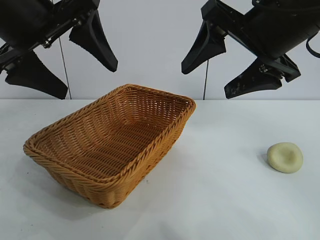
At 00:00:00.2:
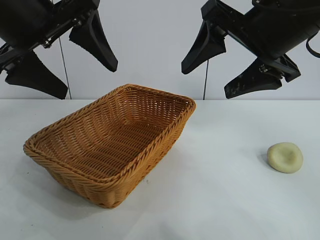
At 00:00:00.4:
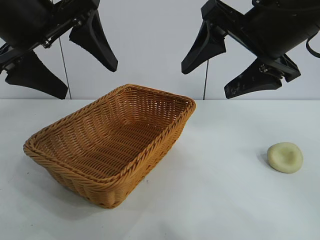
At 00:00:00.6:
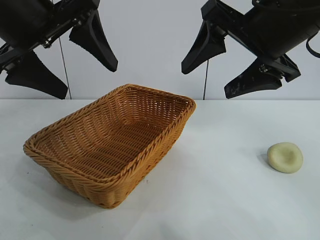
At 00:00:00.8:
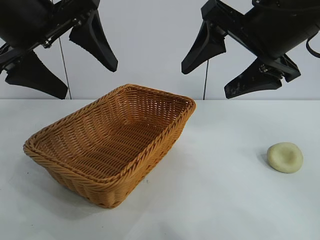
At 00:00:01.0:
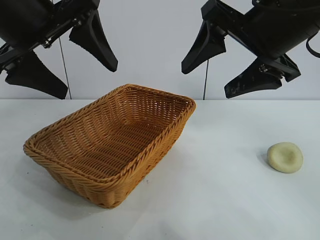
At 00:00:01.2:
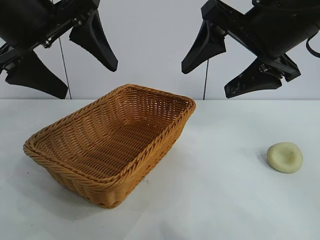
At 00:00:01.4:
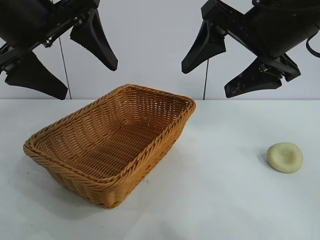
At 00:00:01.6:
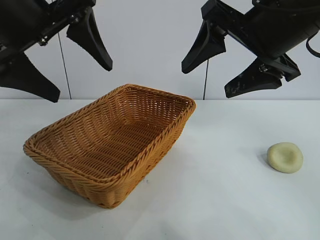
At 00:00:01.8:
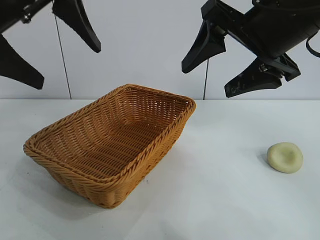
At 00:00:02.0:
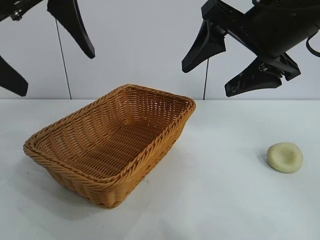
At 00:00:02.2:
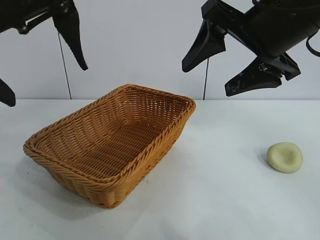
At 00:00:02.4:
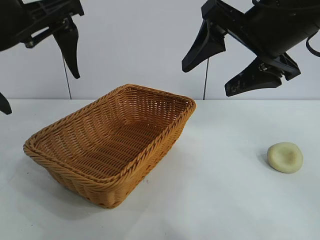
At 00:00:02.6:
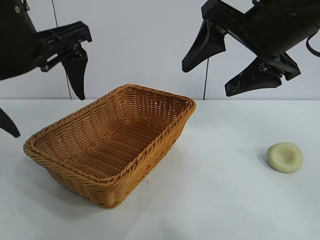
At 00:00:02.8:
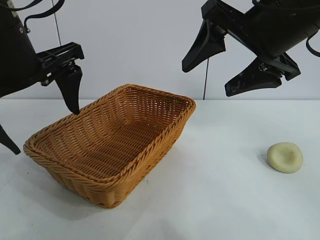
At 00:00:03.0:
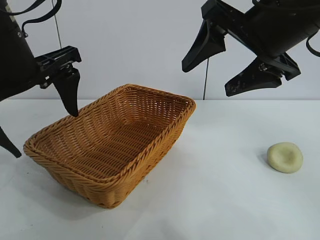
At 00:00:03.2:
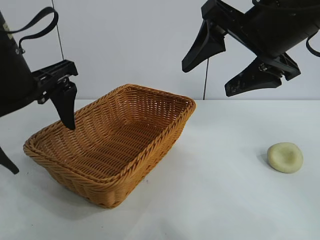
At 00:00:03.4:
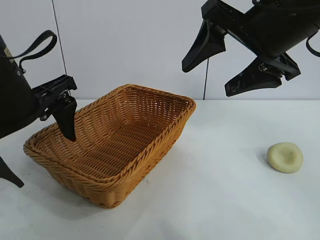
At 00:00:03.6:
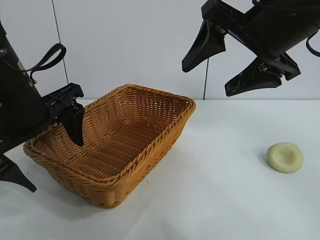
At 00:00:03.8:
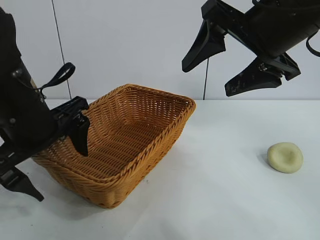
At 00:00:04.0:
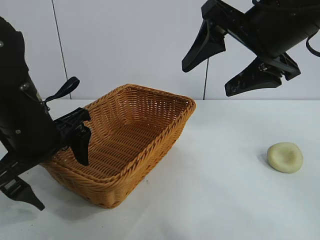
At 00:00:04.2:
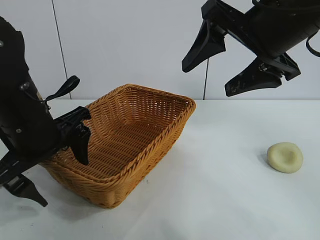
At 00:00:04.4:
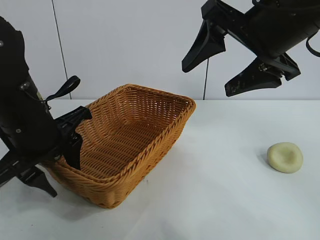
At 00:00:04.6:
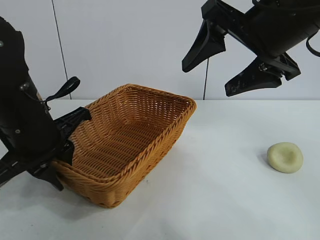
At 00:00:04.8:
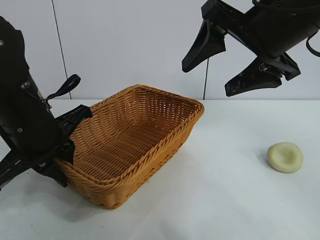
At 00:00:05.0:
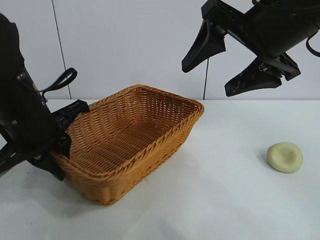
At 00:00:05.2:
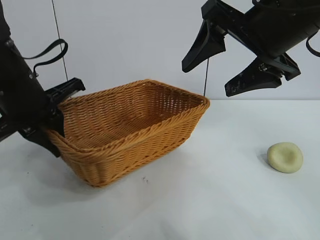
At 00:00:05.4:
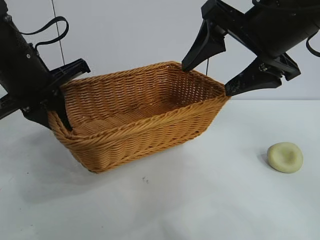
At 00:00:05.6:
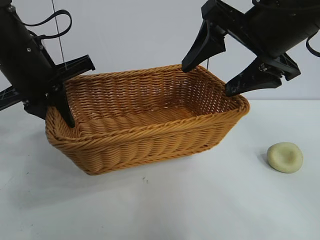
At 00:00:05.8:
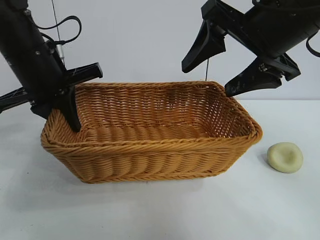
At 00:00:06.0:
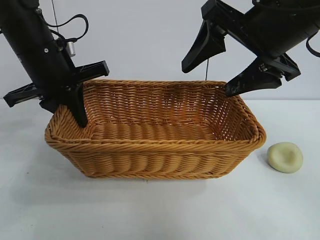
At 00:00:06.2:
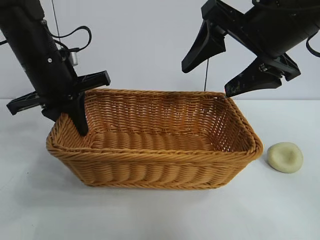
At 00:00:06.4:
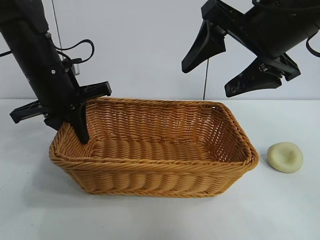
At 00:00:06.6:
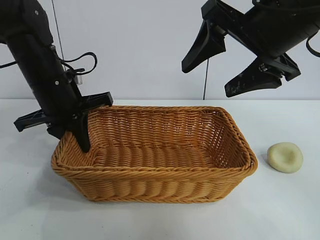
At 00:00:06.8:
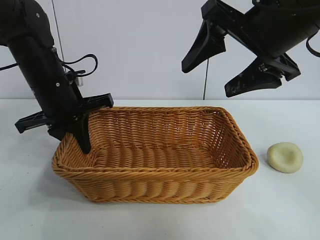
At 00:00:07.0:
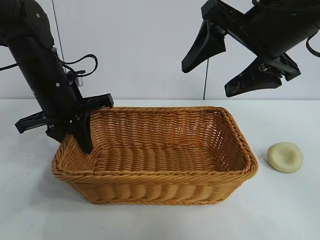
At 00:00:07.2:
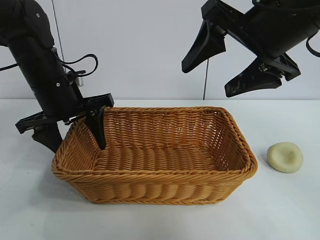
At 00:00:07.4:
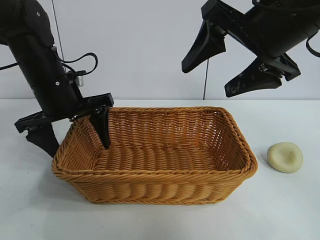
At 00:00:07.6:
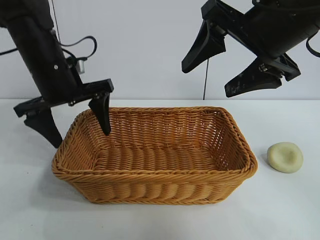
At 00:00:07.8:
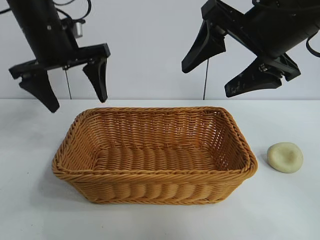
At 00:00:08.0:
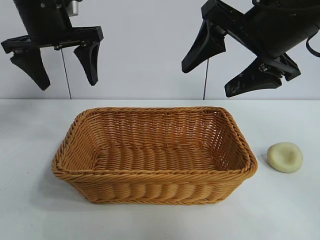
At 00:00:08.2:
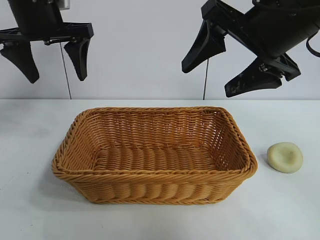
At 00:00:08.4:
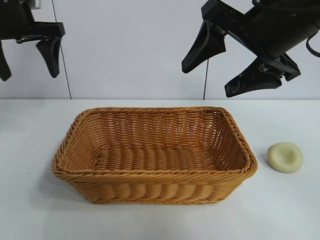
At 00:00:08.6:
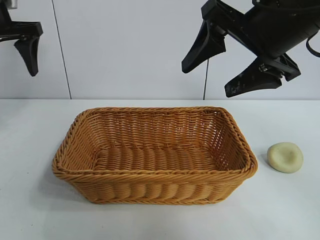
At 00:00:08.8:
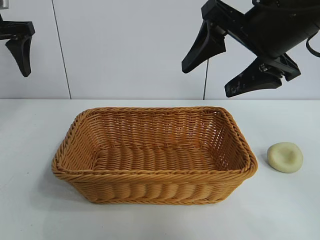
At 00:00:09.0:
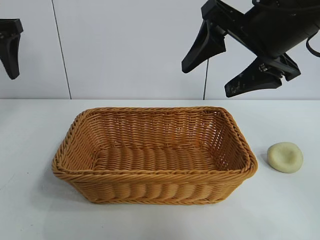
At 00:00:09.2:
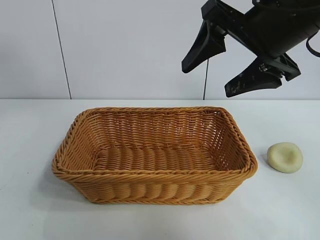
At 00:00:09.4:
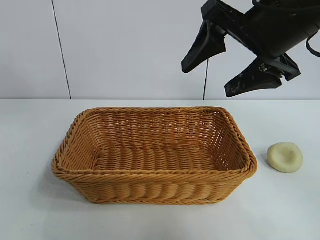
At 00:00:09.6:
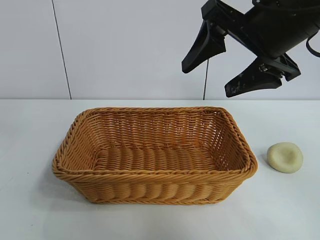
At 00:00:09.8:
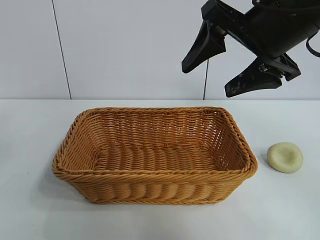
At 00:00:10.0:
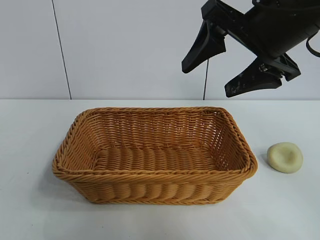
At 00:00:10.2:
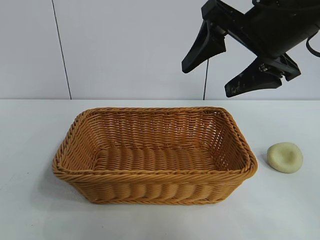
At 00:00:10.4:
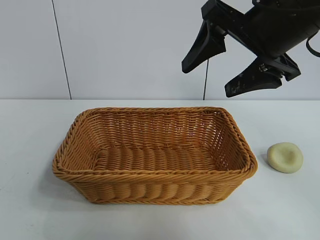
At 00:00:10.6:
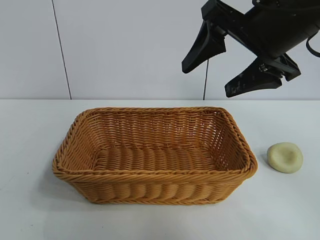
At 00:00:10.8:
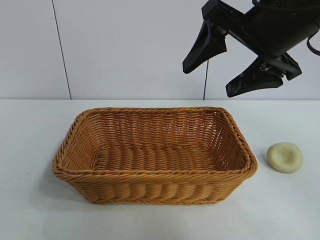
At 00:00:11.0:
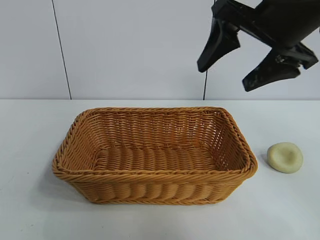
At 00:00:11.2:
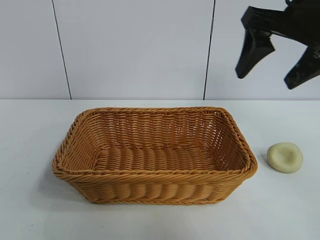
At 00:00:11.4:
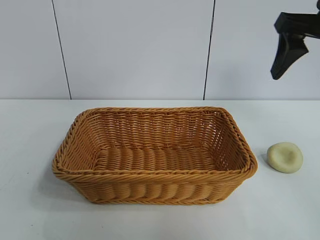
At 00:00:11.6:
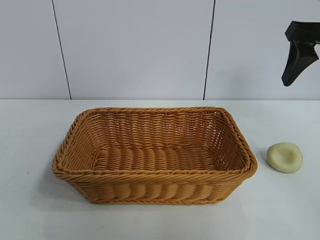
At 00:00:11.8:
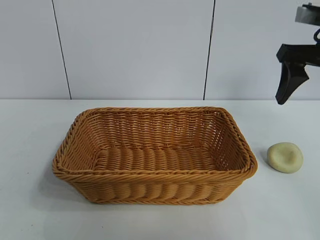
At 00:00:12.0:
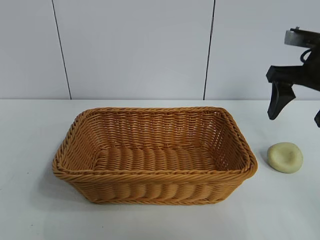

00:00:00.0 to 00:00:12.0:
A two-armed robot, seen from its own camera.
Task of the whole recording: pick up the egg yolk pastry and put it into the basket.
Step, 00:00:01.2 to 00:00:04.6: Grasp the basket with left gripper.
Step, 00:00:04.8 to 00:00:07.2: Place the basket in the center of view with left gripper.

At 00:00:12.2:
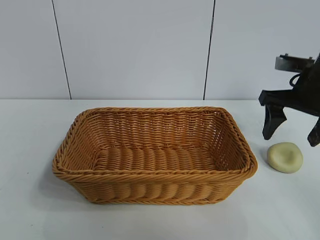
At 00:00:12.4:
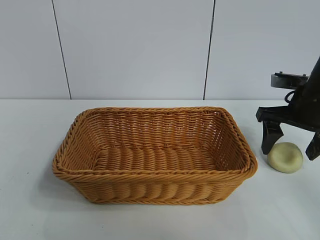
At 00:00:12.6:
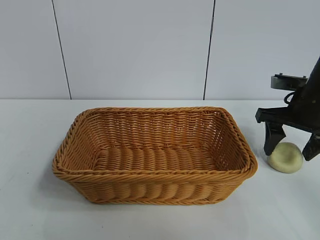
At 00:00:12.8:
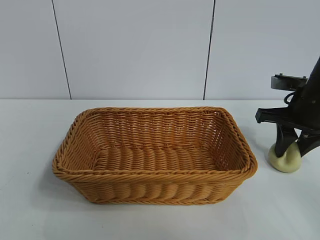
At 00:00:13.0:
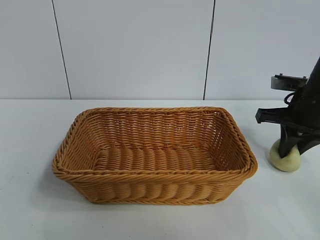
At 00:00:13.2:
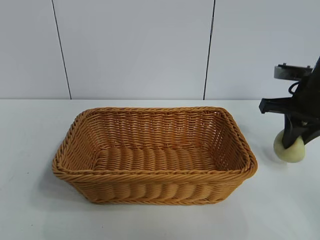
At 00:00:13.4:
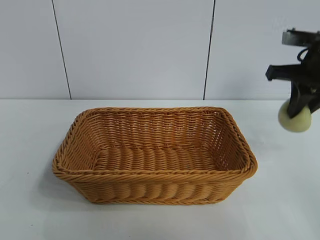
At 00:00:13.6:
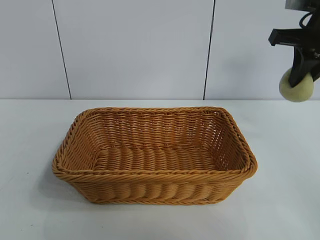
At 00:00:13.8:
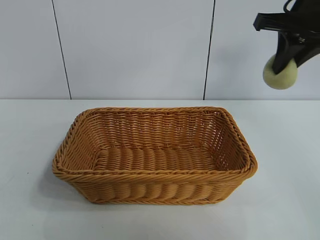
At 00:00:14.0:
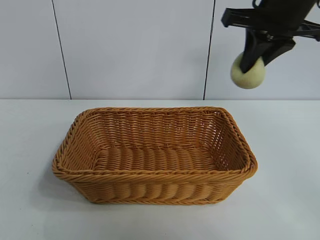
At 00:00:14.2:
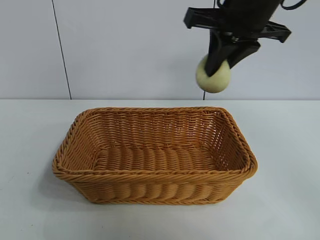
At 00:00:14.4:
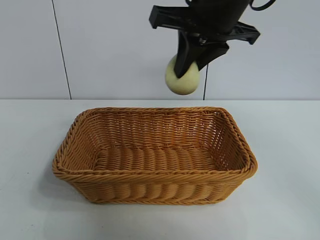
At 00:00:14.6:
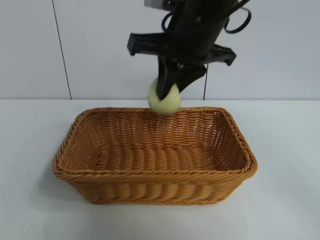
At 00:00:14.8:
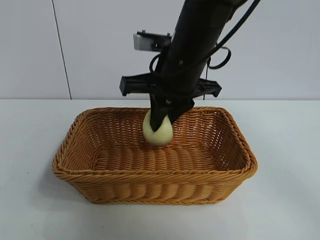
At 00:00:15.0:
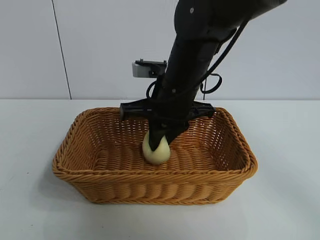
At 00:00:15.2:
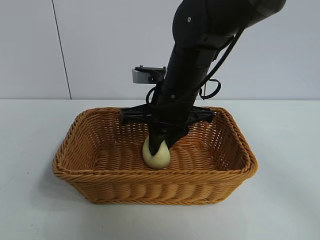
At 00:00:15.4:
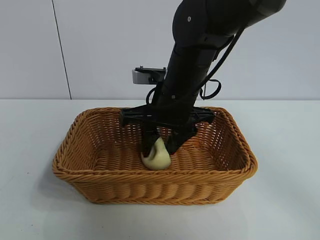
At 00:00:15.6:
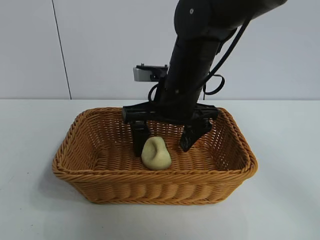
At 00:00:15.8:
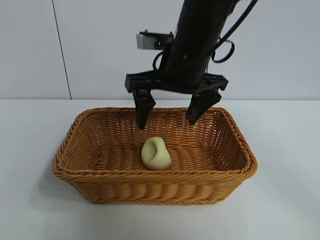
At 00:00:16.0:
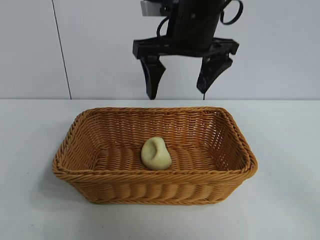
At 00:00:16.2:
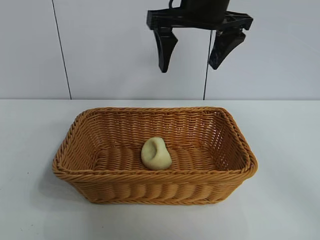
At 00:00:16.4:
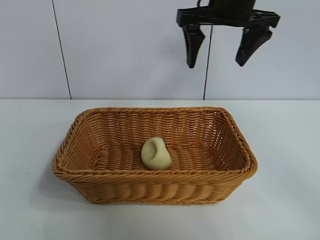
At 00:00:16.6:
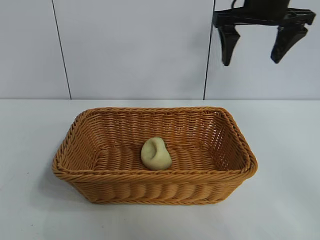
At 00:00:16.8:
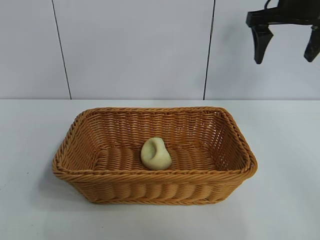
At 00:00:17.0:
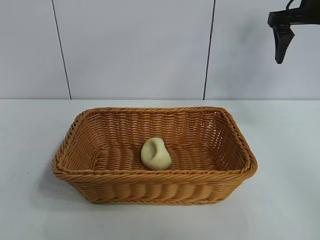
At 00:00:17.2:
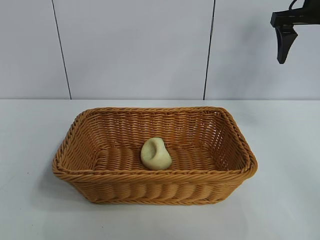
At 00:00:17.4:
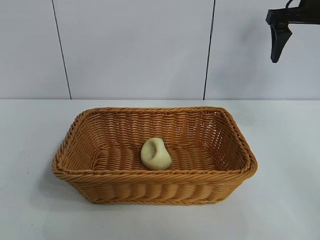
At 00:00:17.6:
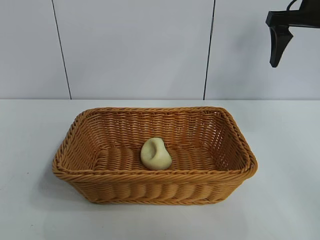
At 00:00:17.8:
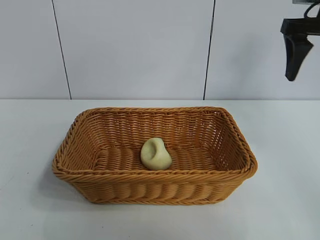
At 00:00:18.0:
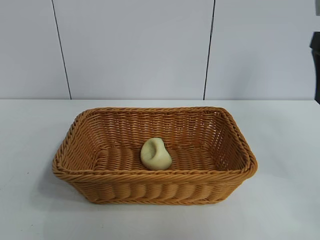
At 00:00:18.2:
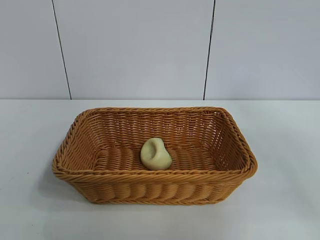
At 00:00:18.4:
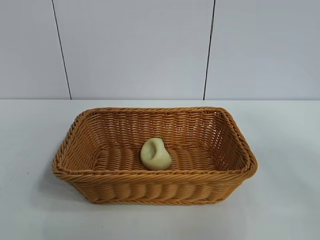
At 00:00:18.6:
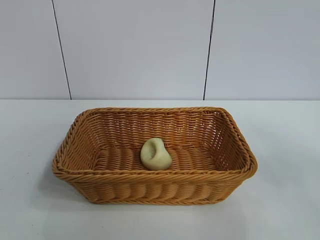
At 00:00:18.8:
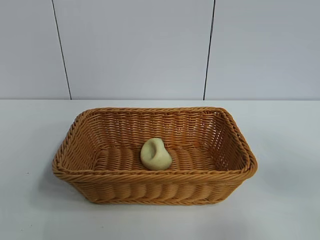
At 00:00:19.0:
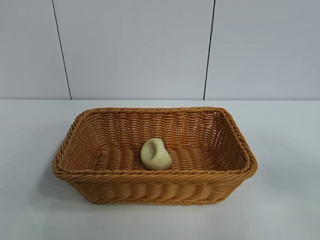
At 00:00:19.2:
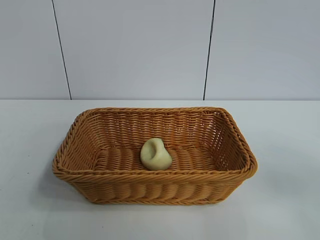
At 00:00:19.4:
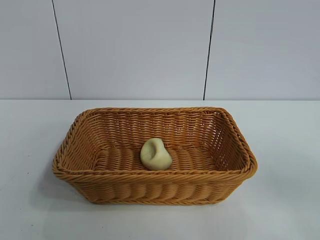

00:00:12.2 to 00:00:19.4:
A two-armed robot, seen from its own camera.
Task of the whole recording: pick up the egg yolk pastry and put it into the basket.
Step, 00:00:13.2 to 00:00:15.6: Place the egg yolk pastry in the basket with right gripper.
